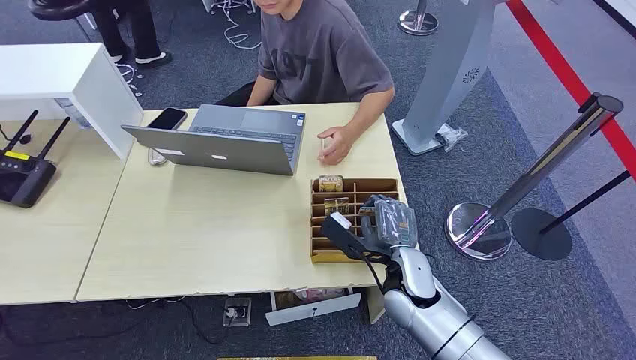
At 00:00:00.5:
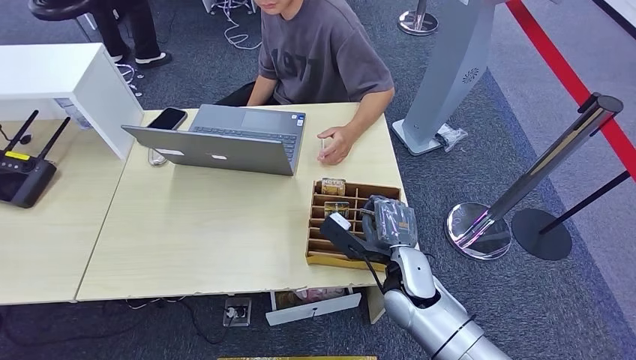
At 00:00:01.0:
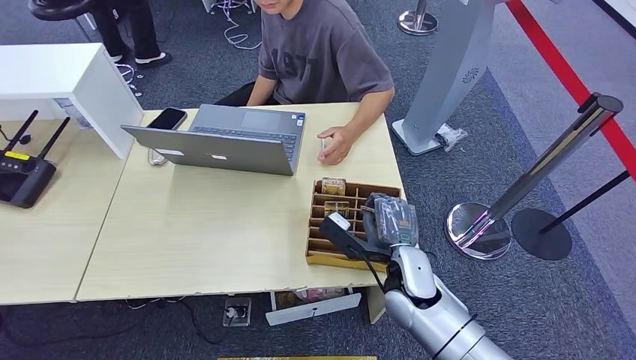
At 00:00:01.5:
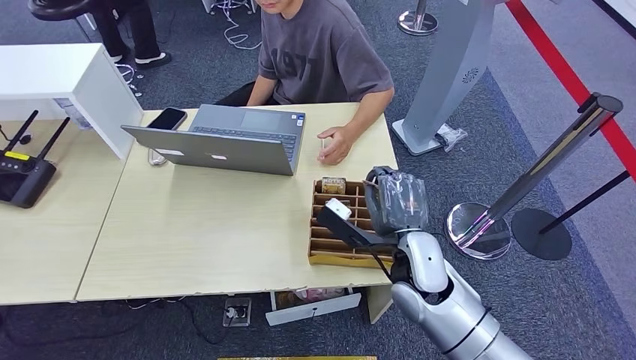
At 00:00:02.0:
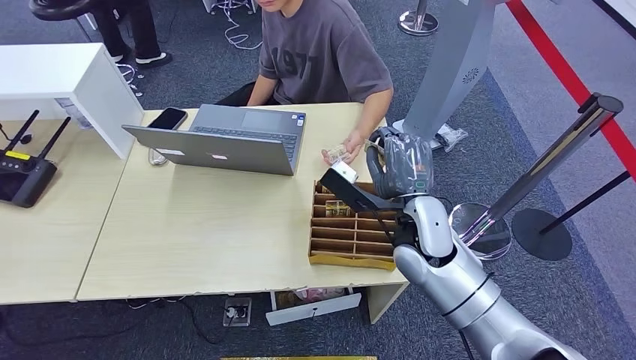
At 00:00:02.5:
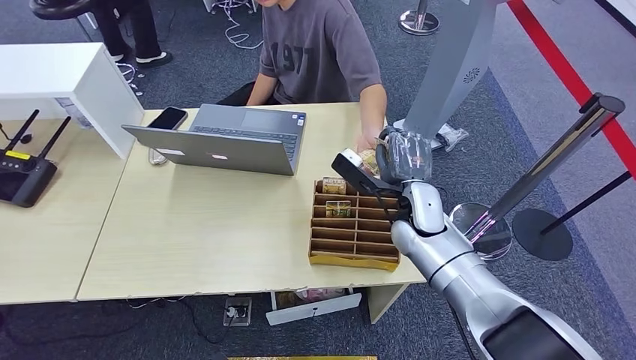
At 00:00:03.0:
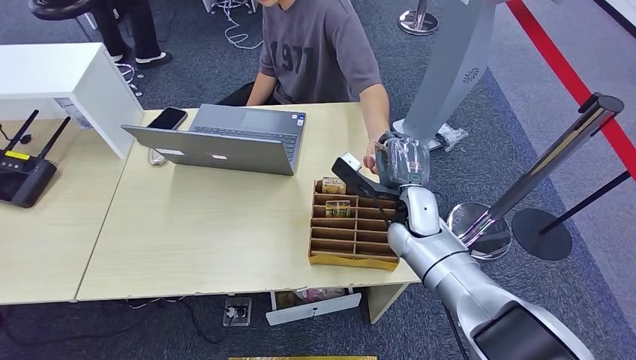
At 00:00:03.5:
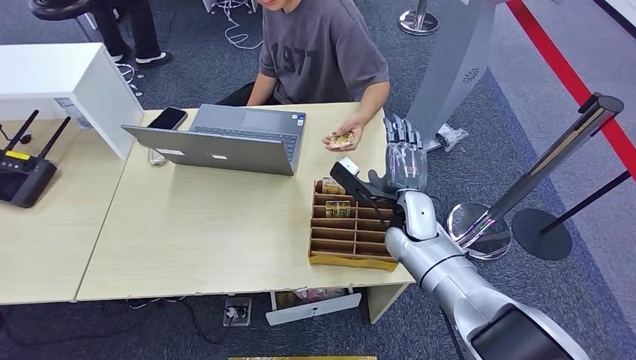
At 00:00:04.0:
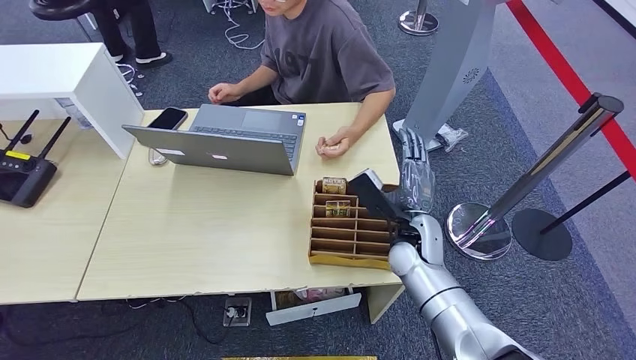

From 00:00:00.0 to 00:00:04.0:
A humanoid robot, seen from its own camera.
Step, from 00:00:00.0 to 00:00:02.0: Pick up the key card from the card box.
Step, from 00:00:02.5 to 00:00:04.0: Hand the key card to the target.
From 00:00:02.0 to 00:00:04.0: The right hand shifts approximately 10 cm downward.
